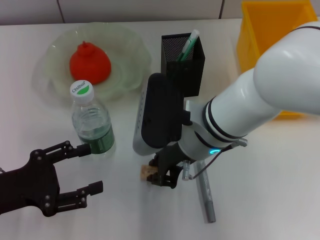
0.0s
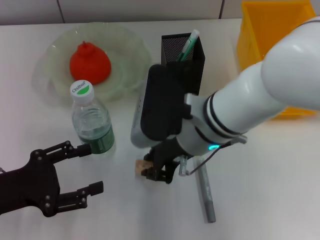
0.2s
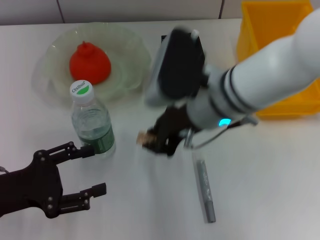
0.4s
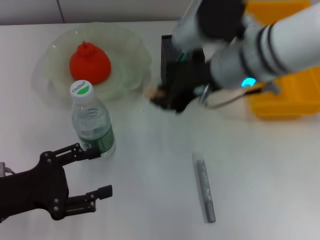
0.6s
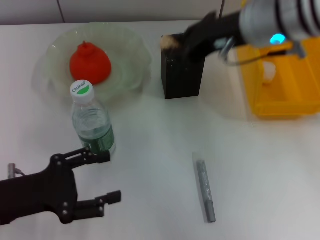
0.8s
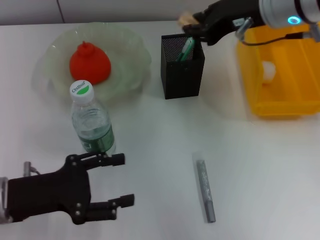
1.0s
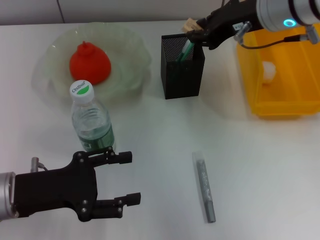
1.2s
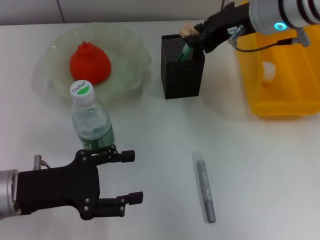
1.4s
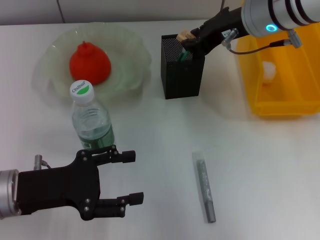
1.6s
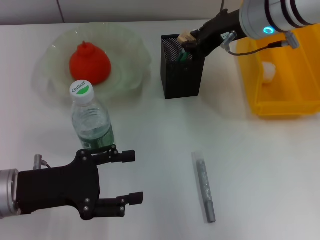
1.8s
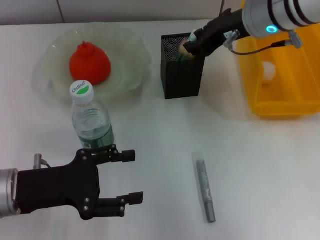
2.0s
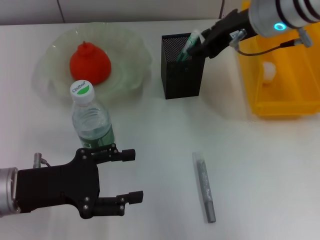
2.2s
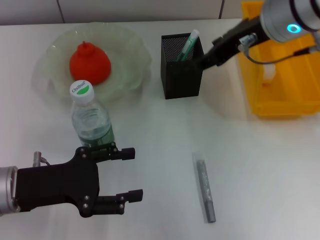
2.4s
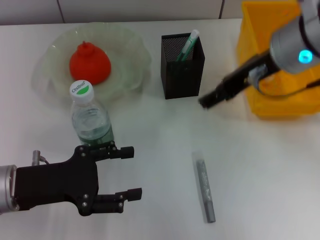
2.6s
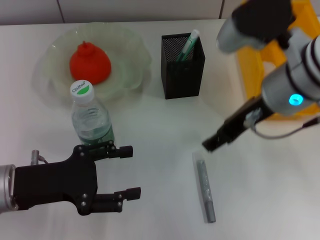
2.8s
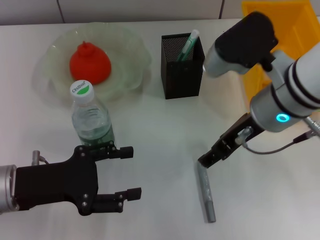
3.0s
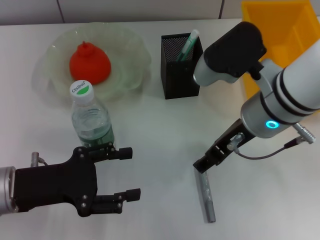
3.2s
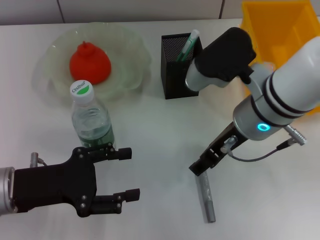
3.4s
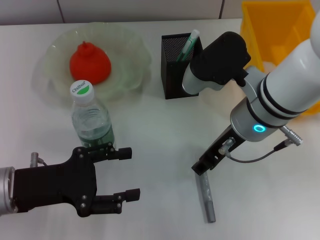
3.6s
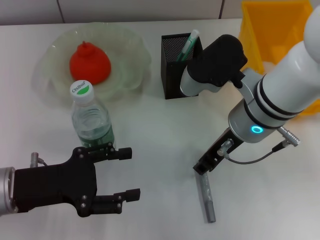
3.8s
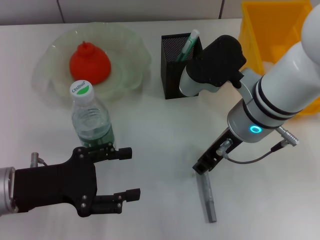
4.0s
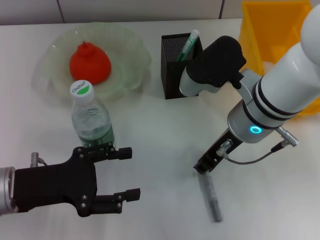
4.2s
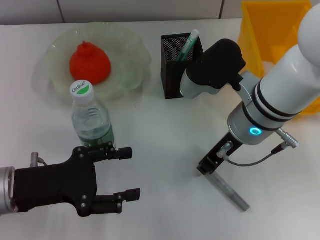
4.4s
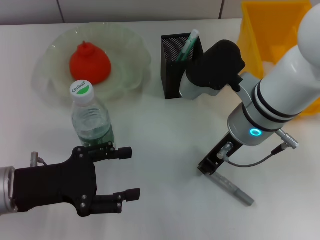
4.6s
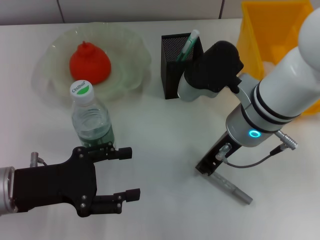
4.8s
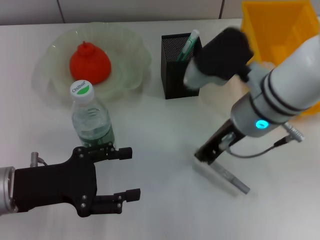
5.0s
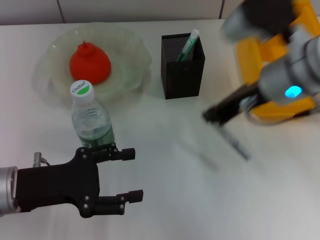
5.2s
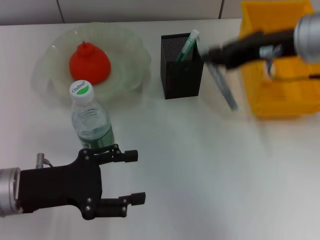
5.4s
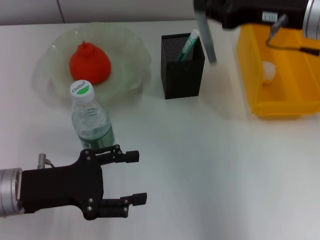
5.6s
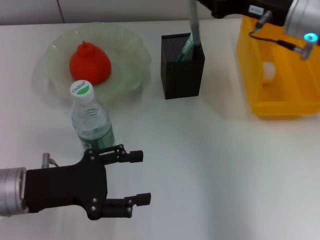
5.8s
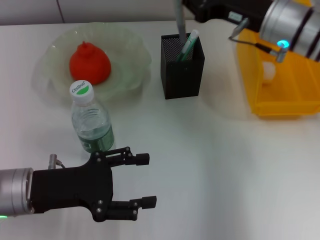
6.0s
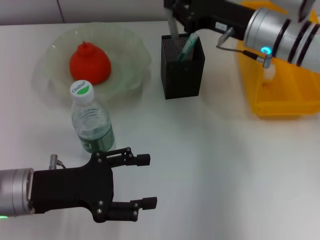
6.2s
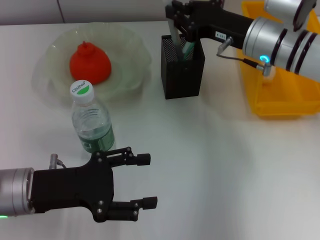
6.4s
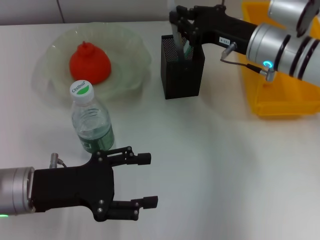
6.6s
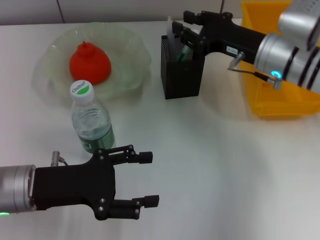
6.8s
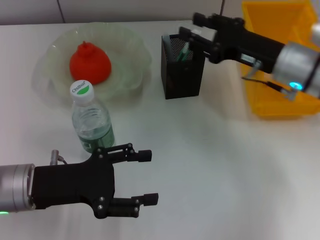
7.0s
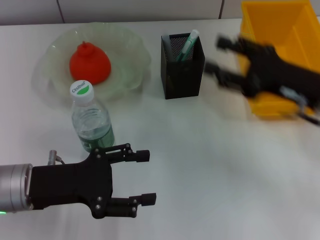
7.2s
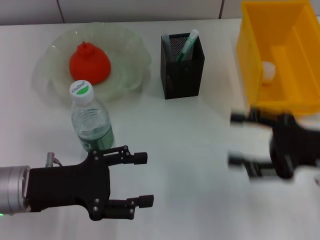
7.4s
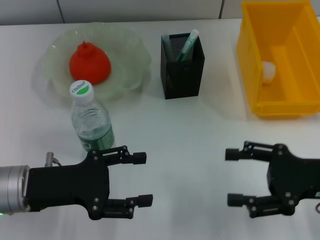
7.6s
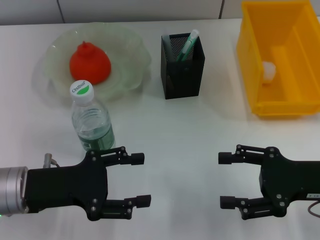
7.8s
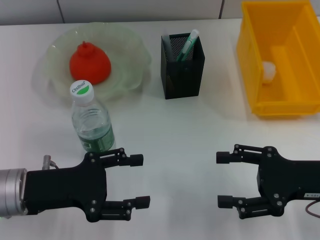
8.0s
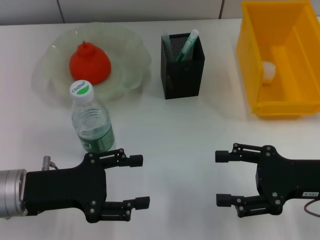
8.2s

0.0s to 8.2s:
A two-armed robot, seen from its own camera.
Step, 0.2s to 2.0s: Put the eraser into the pen holder with the right hand.
Step, 2.4s to 4.6s: Grab the gray glue with the right hand.
Step, 4.8s to 6.8s: Place the gray glue into the pen holder with the right hand.
0.0s to 1.6s: The right gripper travels forward, upward and to the right by approximately 15 cm. The left gripper ends up about 5 cm from where it was.
1.6s to 3.2s: The right gripper shifts some 10 cm backward, and opens its fingers.
3.2s to 5.0s: The right gripper closes up.
5.0s to 6.6s: The right gripper goes about 10 cm forward and to the right, and moves roughly 10 cm upward and comes back.
6.6s to 8.2s: The right gripper is displaced backward and to the right by approximately 20 cm, and opens its fingers.

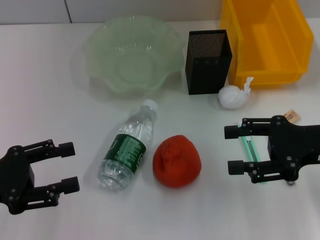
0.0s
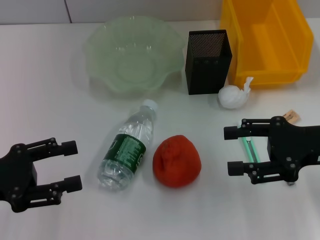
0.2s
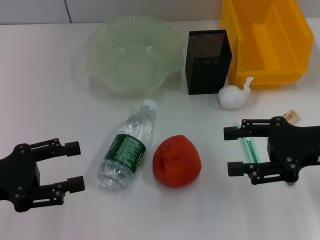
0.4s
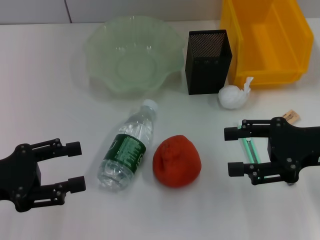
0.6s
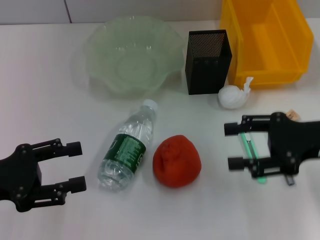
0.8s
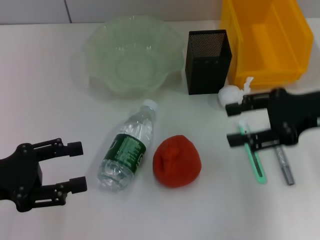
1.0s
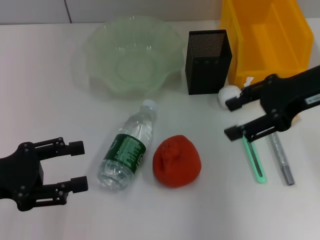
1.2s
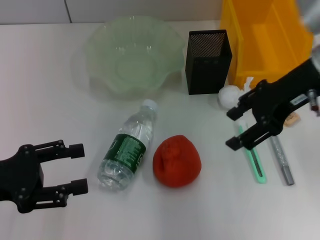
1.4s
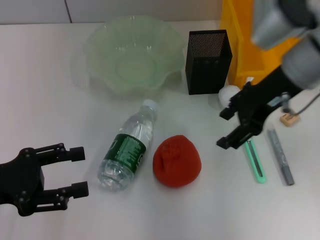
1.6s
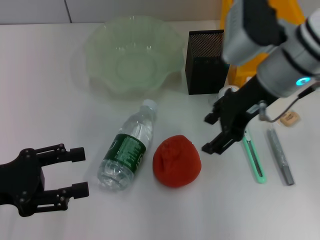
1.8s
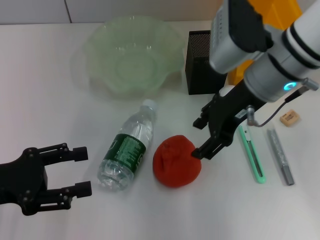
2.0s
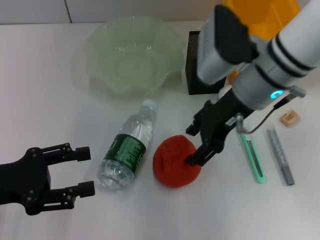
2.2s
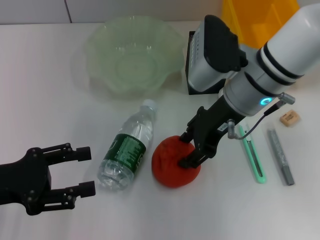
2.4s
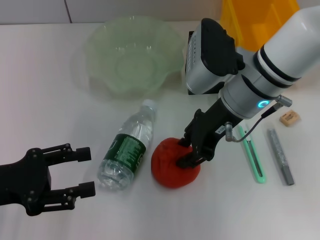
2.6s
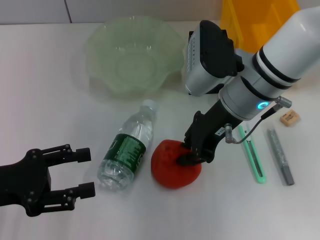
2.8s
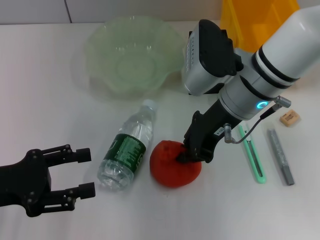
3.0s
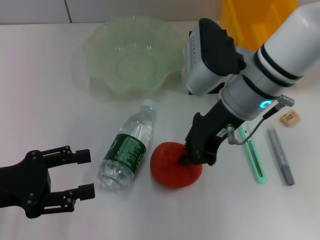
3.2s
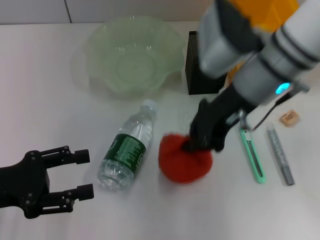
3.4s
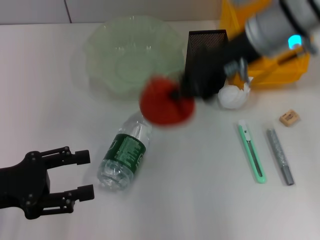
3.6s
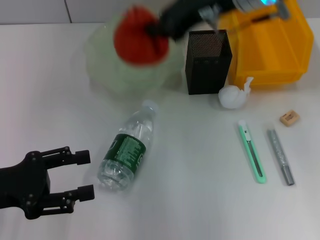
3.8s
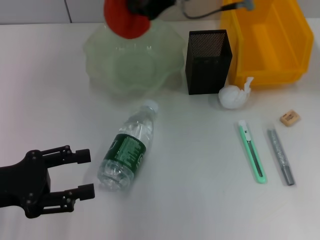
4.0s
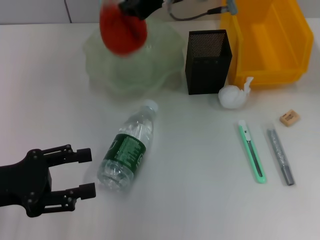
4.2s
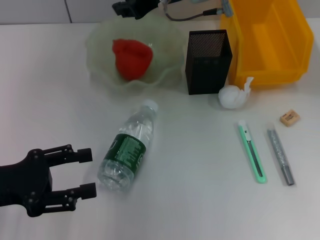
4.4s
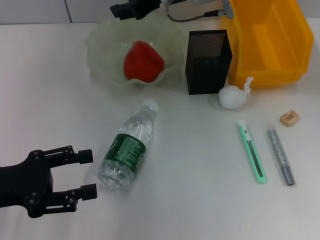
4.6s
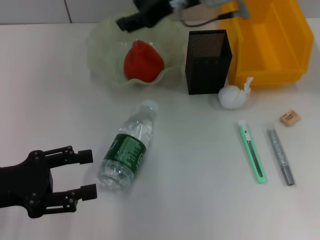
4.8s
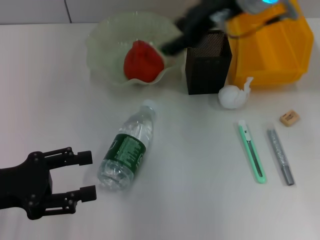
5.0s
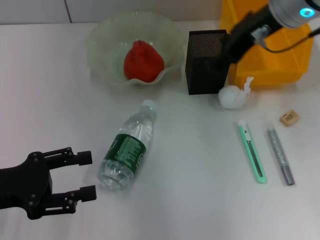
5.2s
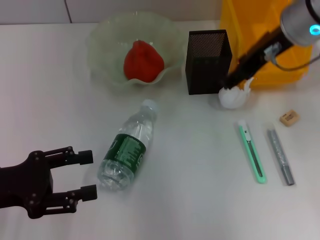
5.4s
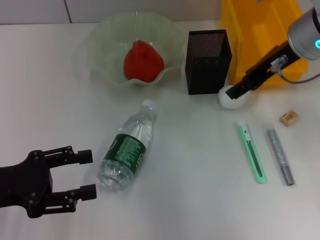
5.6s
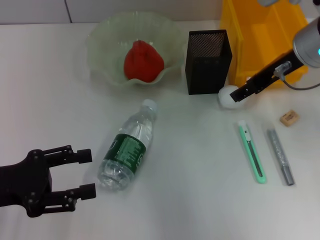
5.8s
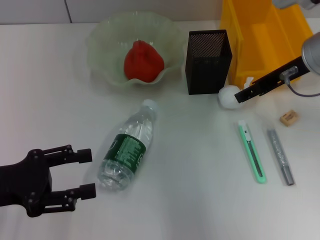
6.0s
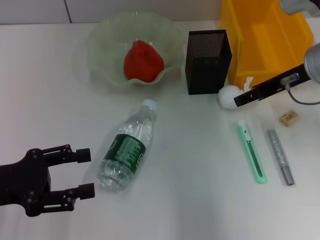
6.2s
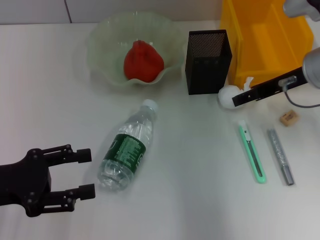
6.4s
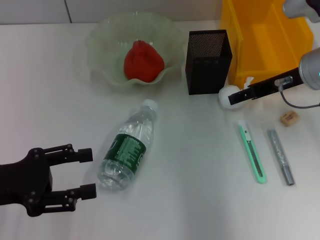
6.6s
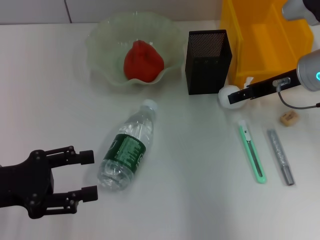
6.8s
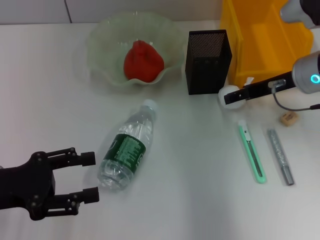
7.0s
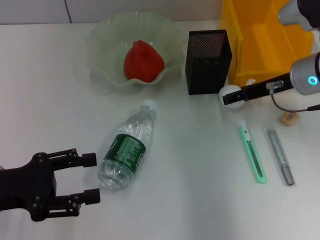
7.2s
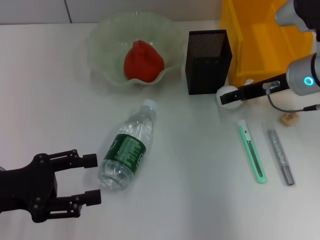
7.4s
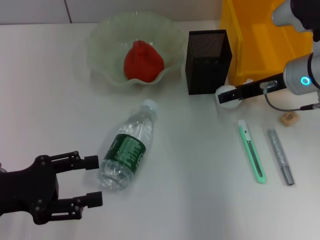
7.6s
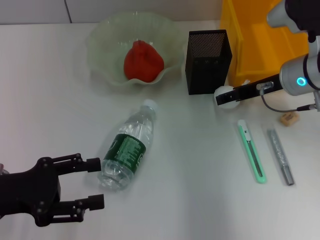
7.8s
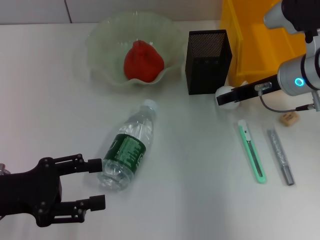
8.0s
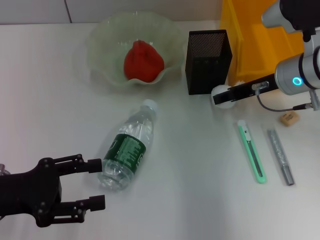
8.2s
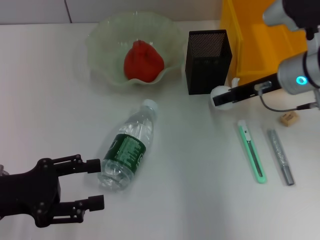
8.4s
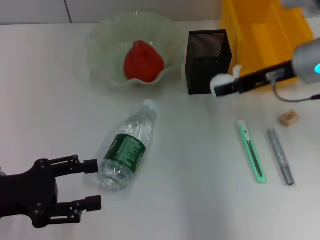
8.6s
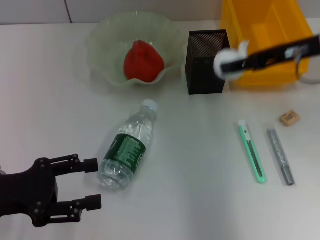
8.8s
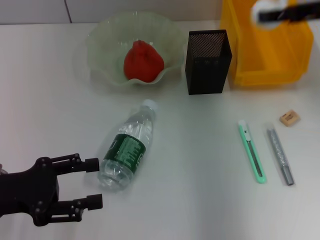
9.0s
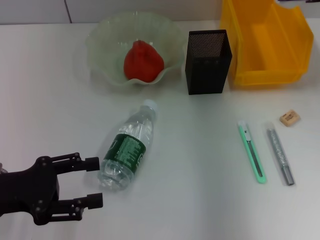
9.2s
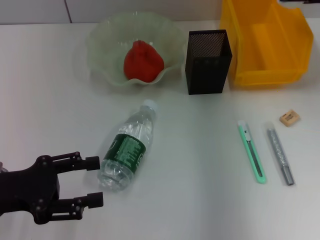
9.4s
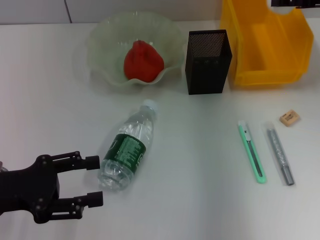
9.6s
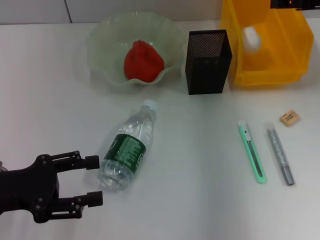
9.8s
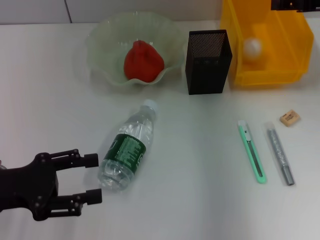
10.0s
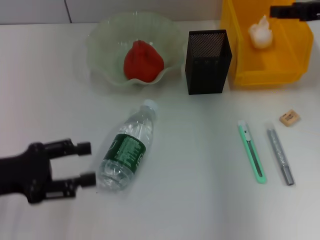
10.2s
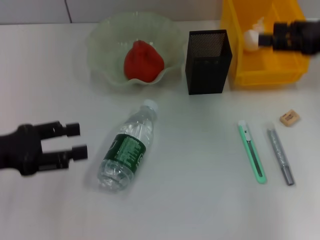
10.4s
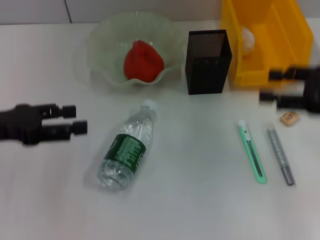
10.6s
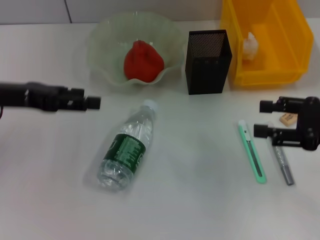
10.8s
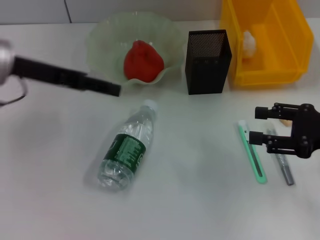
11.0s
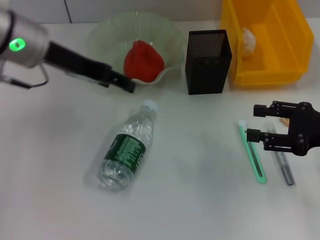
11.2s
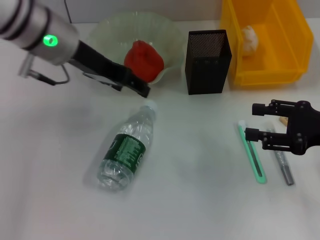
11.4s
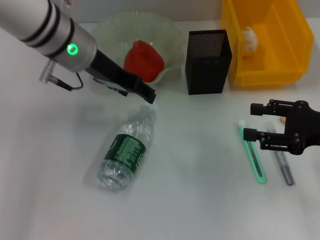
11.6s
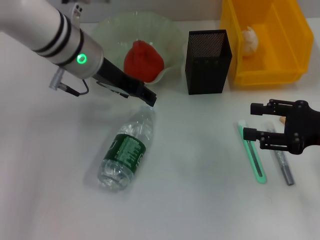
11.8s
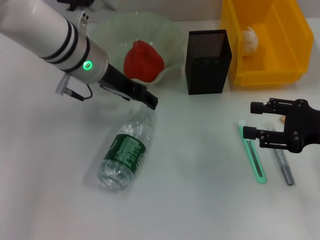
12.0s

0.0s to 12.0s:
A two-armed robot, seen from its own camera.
Step, 4.8s to 8.2s: Grab the paper ball with the right hand.
Step, 8.4s to 9.8s: Place the paper ball into the trash can with the right hand.
0.0s to 1.6s: The right gripper shifts some 15 cm to the left, forward and upward.
1.6s to 3.0s: The right gripper moves to the left, roughly 5 cm, and closes.
3.0s to 4.4s: The right gripper shifts roughly 10 cm forward and upward.
4.4s to 6.0s: The right gripper heads to the right and backward, covering some 15 cm, and opens its fingers.
6.0s to 7.6s: The right gripper moves downward, approximately 5 cm.
7.6s to 9.0s: The right gripper is displaced upward and to the right by roughly 15 cm, and closes up.
9.0s to 10.4s: The right gripper travels backward by about 5 cm. Meanwhile the left gripper ends up approximately 5 cm from where it was.
10.4s to 12.0s: The right gripper moves downward, approximately 10 cm, while the left gripper heads to the right and forward, covering approximately 25 cm.

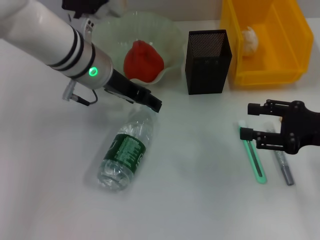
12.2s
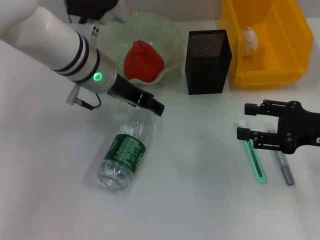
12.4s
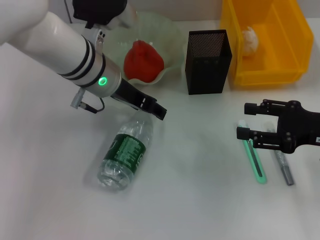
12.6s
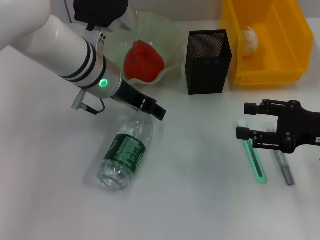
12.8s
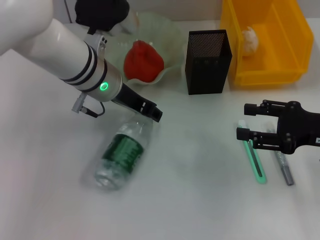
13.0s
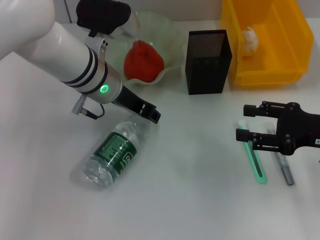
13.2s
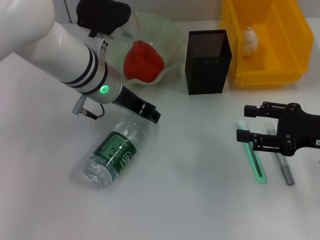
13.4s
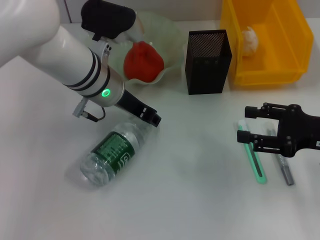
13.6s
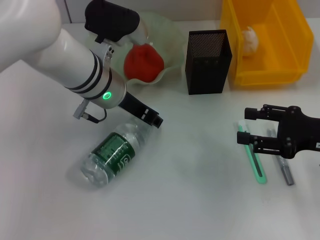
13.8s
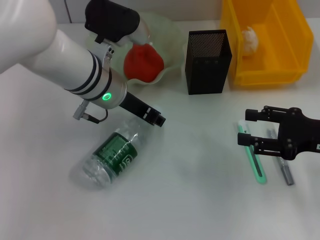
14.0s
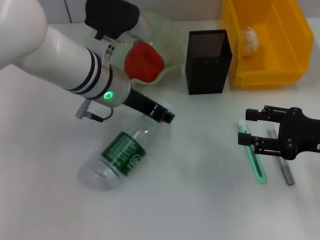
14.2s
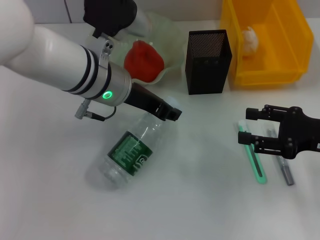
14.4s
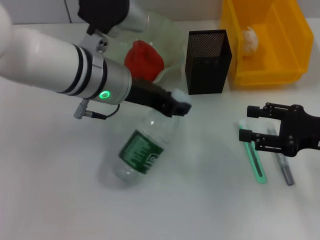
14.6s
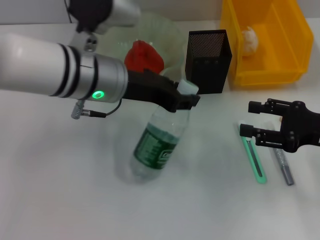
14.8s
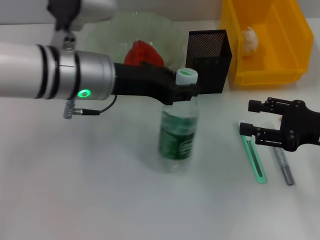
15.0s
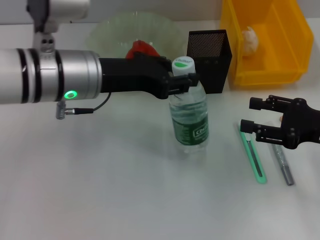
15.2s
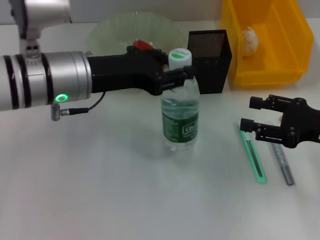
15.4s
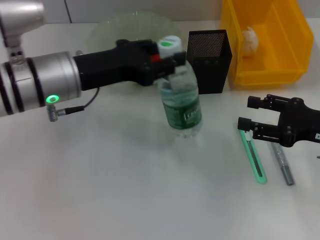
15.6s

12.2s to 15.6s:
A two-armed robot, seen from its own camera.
12.2s to 13.8s: The left gripper closes.
13.8s to 15.6s: The left gripper heads to the left and backward, covering some 10 cm.
